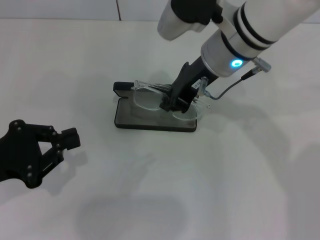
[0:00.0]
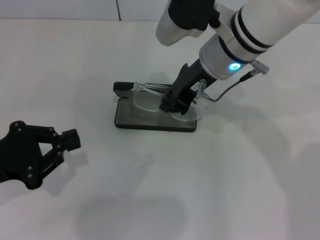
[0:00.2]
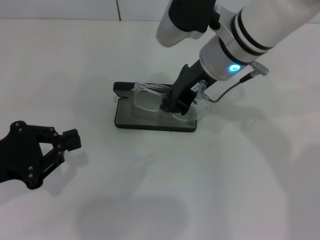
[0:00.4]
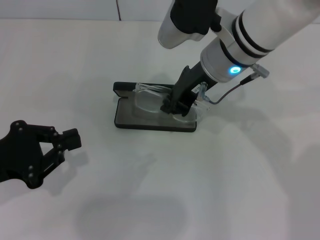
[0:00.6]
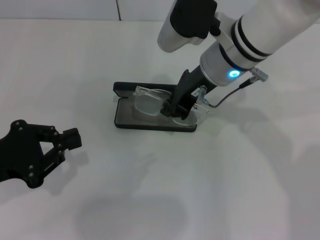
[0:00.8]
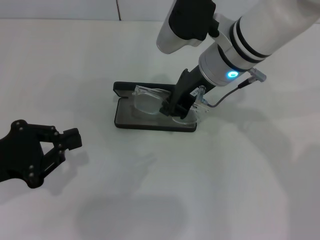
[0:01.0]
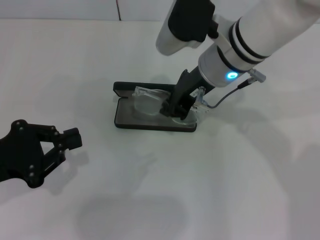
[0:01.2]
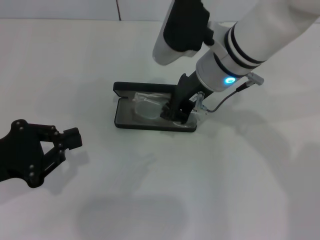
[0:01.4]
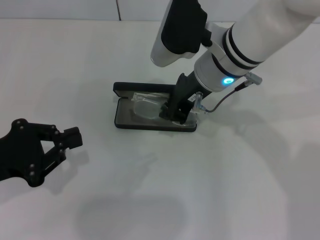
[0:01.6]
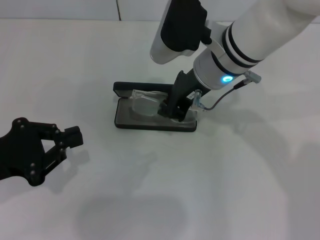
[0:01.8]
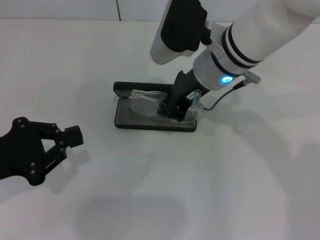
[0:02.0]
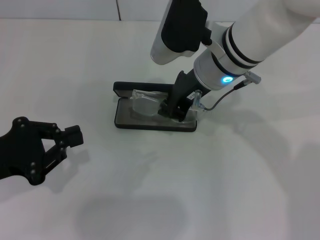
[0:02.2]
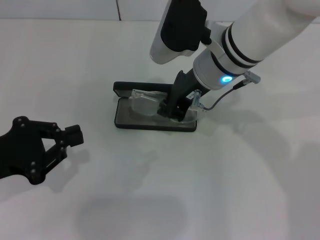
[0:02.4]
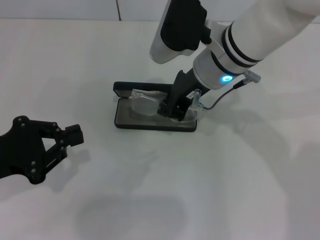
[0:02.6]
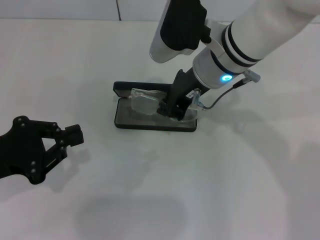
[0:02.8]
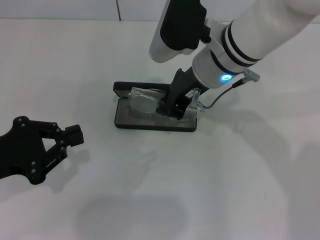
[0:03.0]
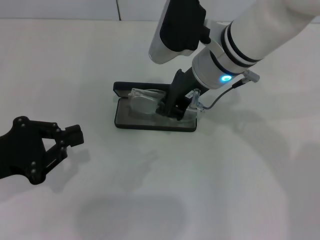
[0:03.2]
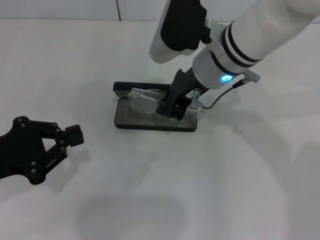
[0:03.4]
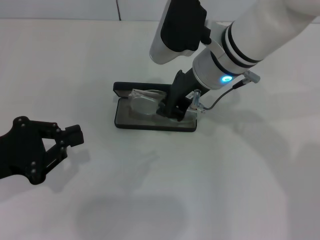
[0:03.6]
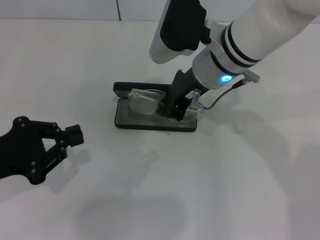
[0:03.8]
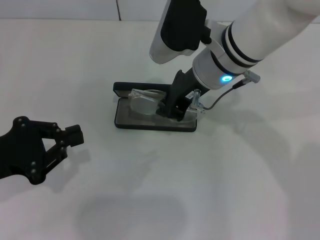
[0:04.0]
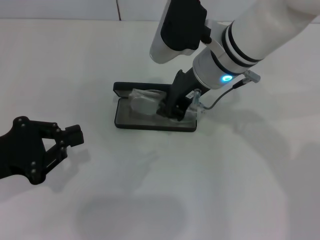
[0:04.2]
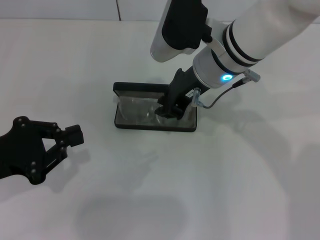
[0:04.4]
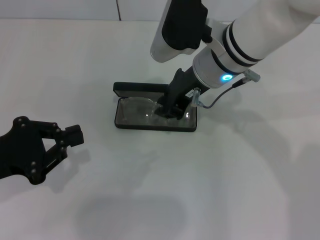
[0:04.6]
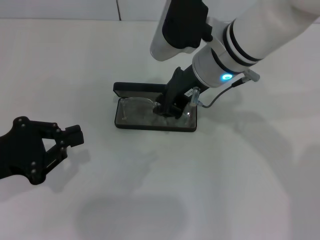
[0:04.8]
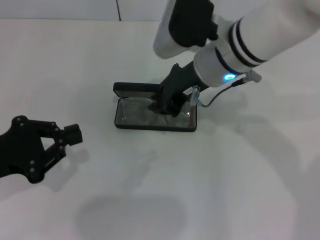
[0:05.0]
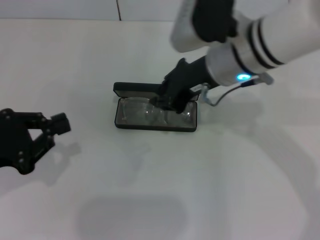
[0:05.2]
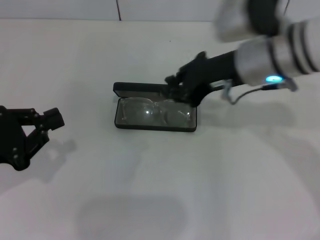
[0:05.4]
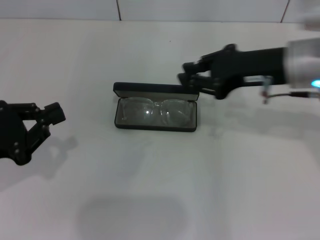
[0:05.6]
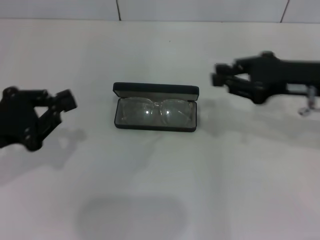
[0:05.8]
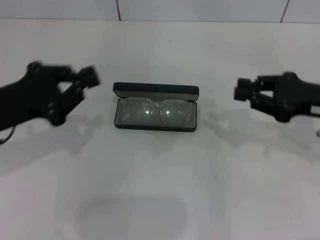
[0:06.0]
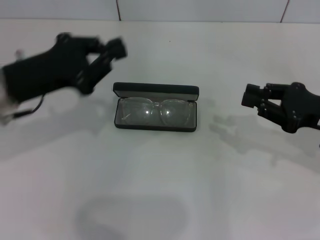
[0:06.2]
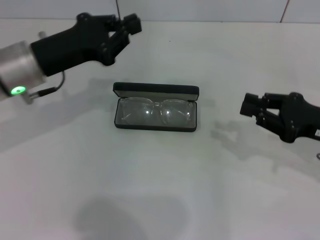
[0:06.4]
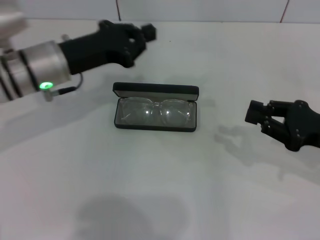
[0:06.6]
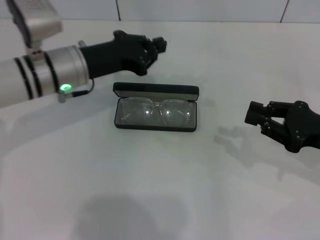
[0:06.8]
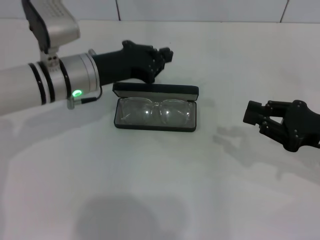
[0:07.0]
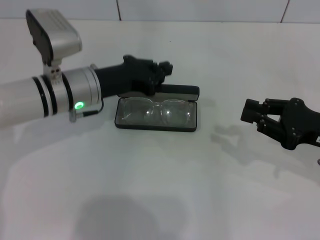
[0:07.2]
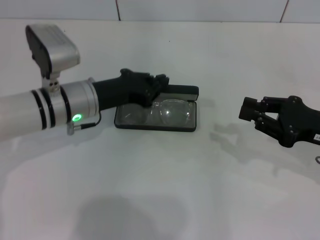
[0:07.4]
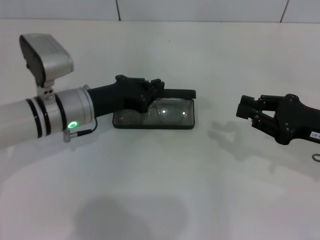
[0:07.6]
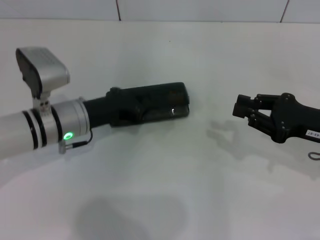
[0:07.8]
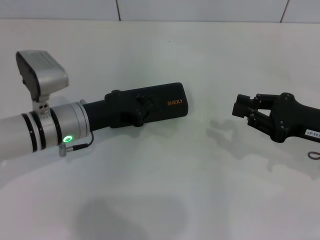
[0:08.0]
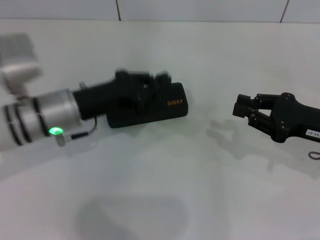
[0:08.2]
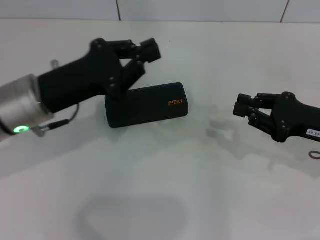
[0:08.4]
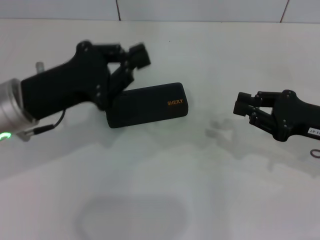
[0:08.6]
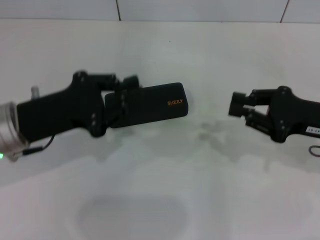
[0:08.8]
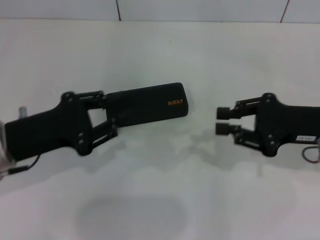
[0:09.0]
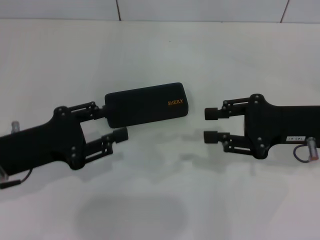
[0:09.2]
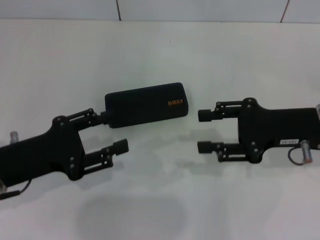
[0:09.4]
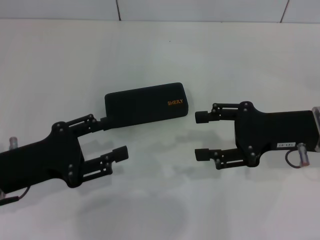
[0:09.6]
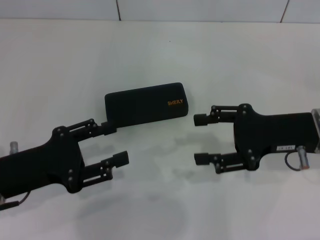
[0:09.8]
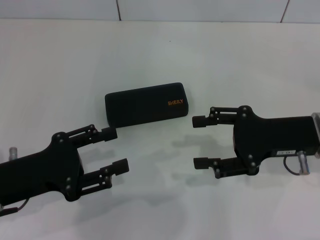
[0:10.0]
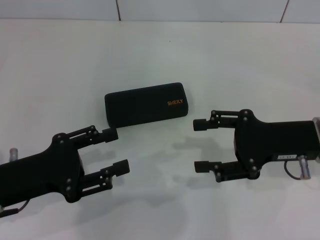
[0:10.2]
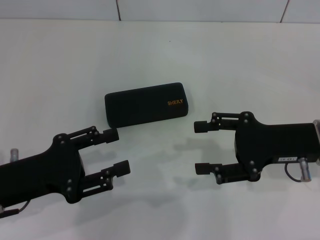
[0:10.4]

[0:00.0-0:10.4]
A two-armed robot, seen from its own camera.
Step, 0:00.0 to 0:04.6: Put the glasses into the case with your right hand.
Step, 0:05.0 to 0:07.8: Close the glasses case with your left hand.
0:00.0 to 0:01.4: The grippers move only a little.
0:01.4 to 0:04.4: Both grippers stay put.
0:04.4 to 0:06.0: The right gripper goes about 20 cm to the right. Meanwhile the left gripper goes some 5 cm forward.
0:06.0 to 0:07.4: The left gripper travels to the right, forward and downward by approximately 15 cm.
0:07.4 to 0:09.0: The left gripper is displaced backward and to the left by some 15 cm.
0:09.0 to 0:10.4: The left gripper opens. Meanwhile the right gripper opens its fingers.

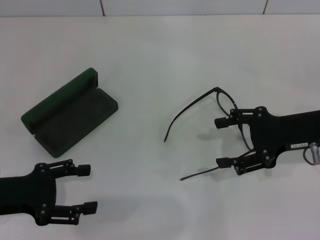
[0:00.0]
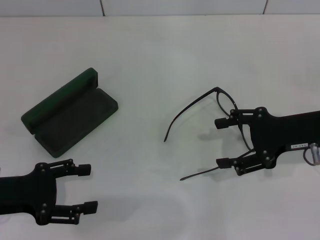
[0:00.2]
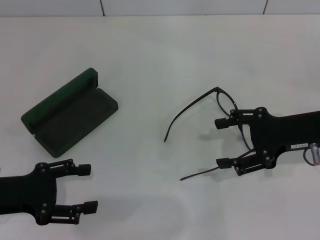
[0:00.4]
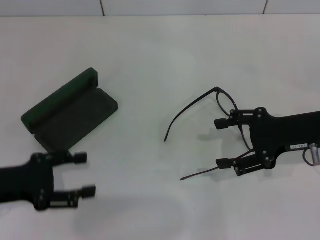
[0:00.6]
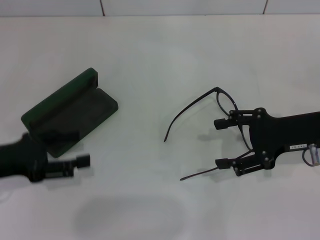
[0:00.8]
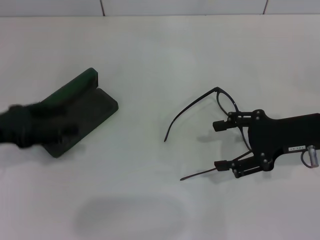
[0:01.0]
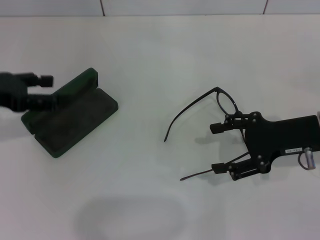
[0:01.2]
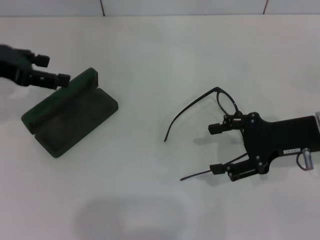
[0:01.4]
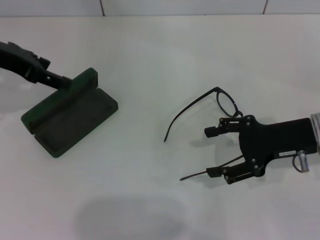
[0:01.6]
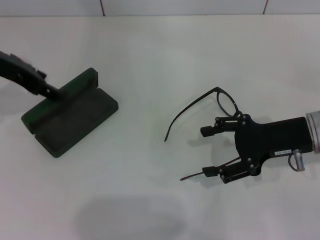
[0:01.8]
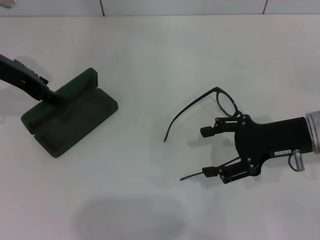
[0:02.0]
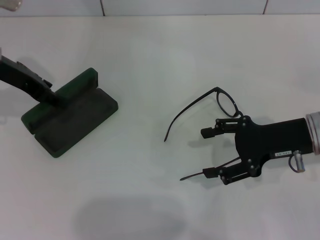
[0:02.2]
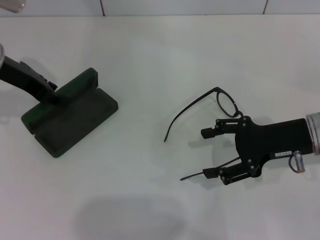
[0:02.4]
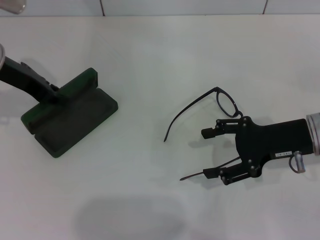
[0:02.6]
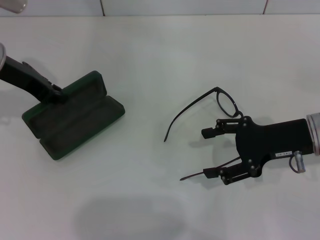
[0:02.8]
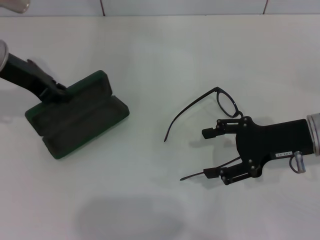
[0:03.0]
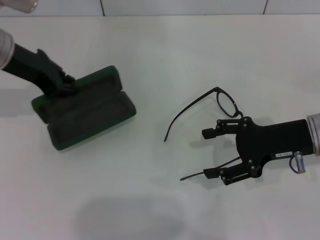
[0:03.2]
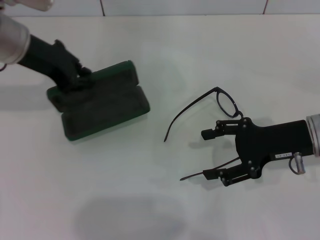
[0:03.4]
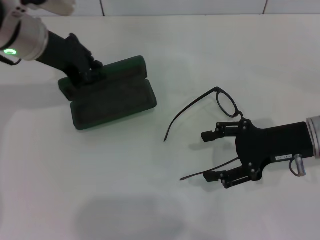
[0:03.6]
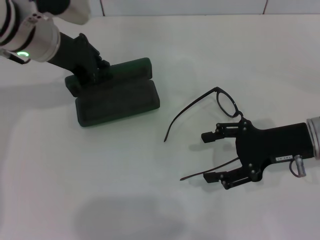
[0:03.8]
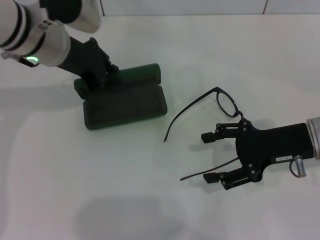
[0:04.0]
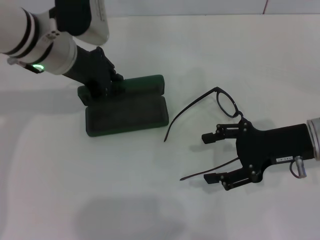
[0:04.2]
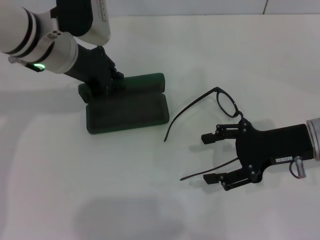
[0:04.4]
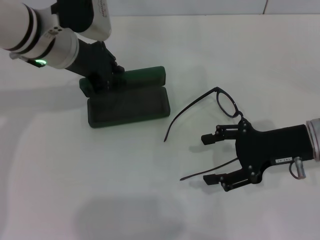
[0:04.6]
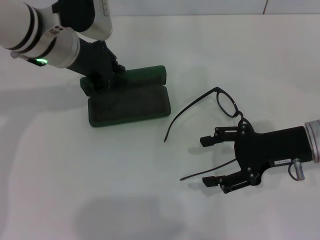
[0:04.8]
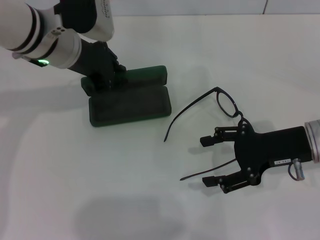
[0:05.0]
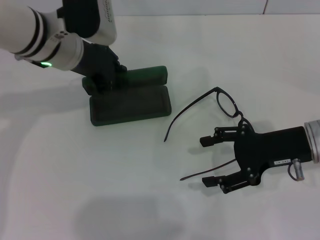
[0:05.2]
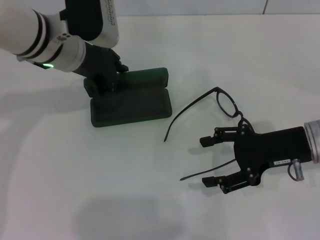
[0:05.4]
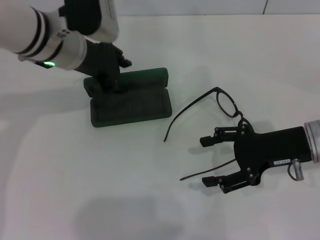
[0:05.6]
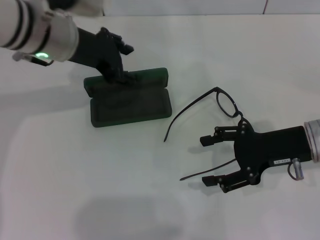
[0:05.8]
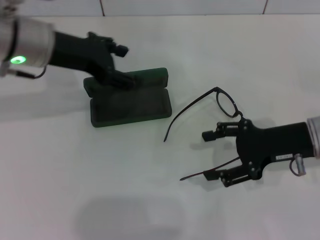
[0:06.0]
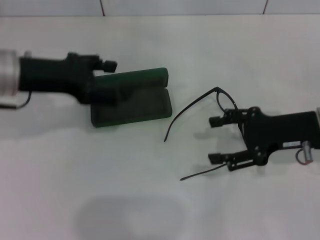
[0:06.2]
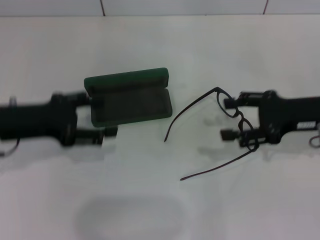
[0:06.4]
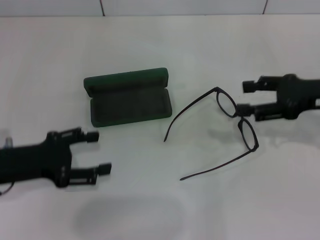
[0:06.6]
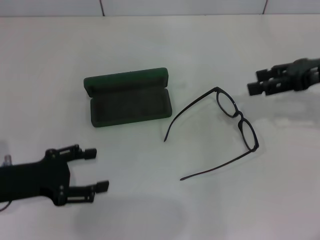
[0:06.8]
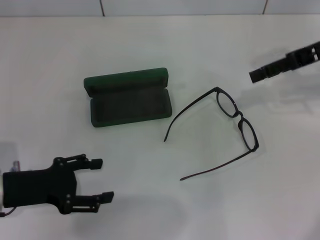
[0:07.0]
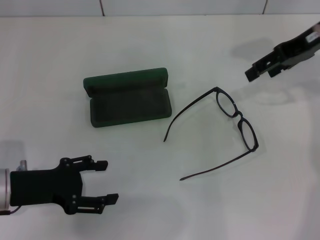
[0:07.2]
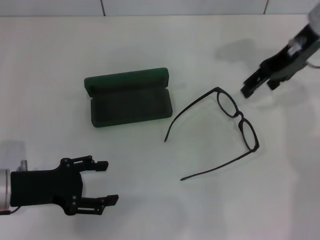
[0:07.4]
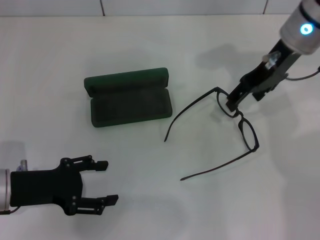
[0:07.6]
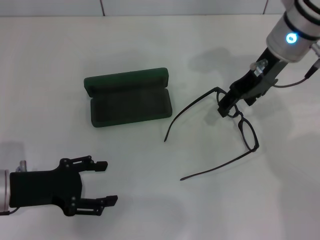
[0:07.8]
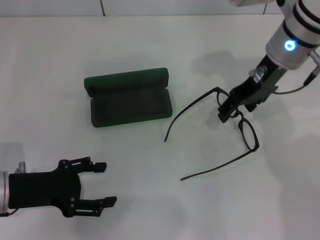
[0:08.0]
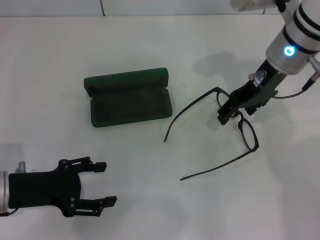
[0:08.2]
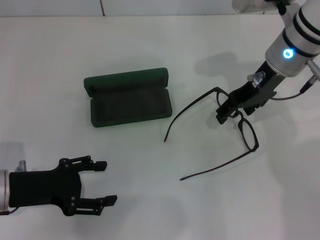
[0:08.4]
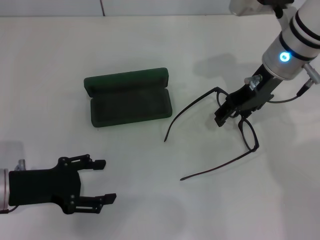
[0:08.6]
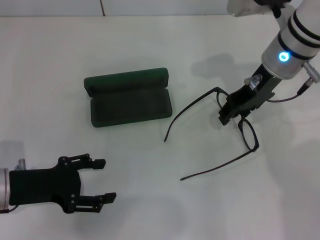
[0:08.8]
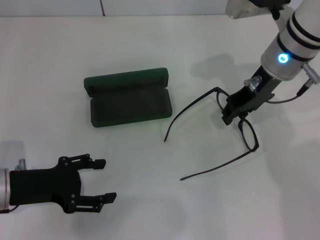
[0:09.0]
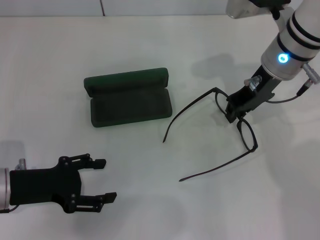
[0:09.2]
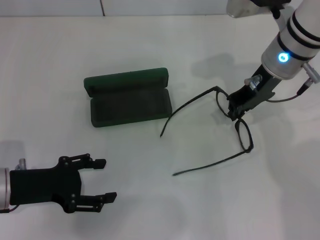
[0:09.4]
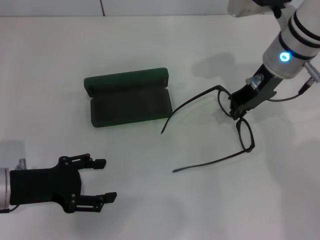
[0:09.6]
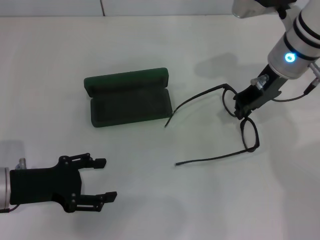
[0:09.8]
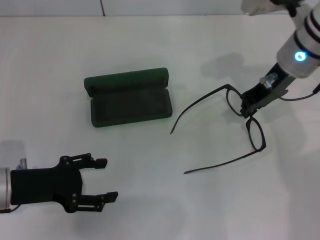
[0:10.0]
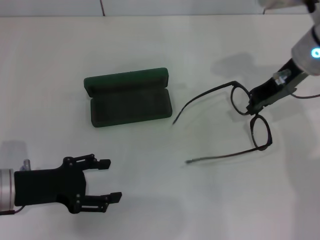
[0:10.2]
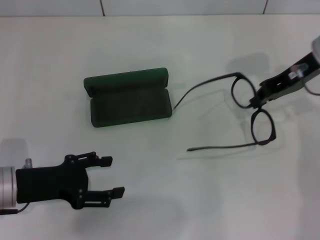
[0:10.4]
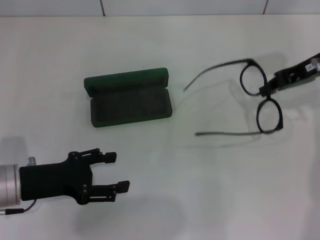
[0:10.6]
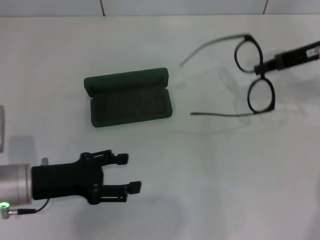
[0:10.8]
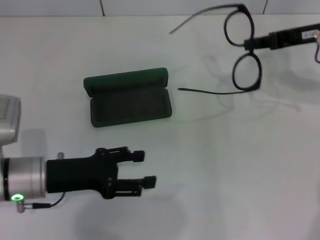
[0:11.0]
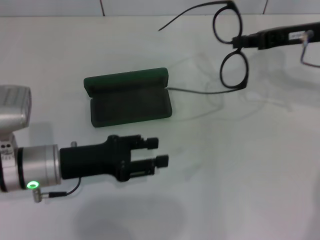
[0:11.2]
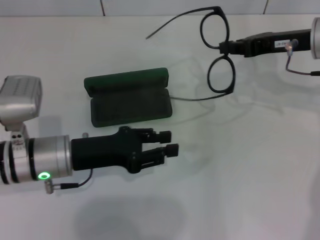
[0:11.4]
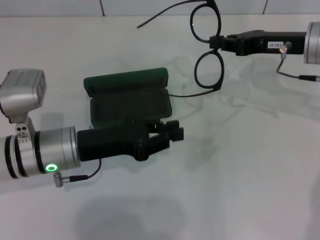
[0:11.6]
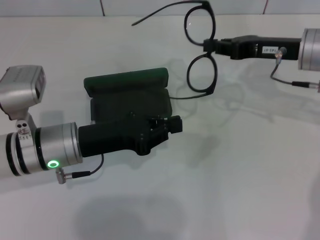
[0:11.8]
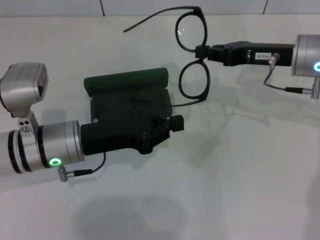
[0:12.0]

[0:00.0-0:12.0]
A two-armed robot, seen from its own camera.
Step, 0:00.0 to 0:02.6: Grab the glasses case with your left hand.
Step, 0:02.8 to 0:05.4: Place the glasses case in the center of the table with your left hand.
Step, 0:05.6 to 0:09.4: Grab the eyeglass frame with your right hand.
0:00.0 to 0:01.6: The left gripper is displaced forward and upward by about 20 cm.
0:01.6 to 0:03.0: The left gripper closes its fingers.
0:03.0 to 0:04.4: The left gripper is displaced to the right by some 10 cm.
0:04.4 to 0:06.0: The left gripper opens its fingers.
0:06.0 to 0:07.6: The right gripper is displaced forward, upward and to the left by about 15 cm. Meanwhile the left gripper heads downward, backward and to the left, covering approximately 20 cm.
0:07.6 to 0:09.0: The grippers stay close to where they were, moving slightly.
0:09.0 to 0:10.4: The right gripper is displaced to the right by roughly 10 cm, and closes up.
0:10.4 to 0:12.0: The left gripper shifts about 10 cm to the right, and closes.
